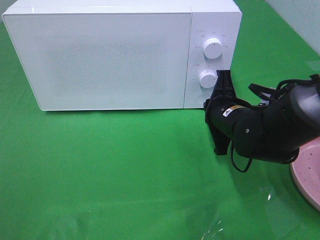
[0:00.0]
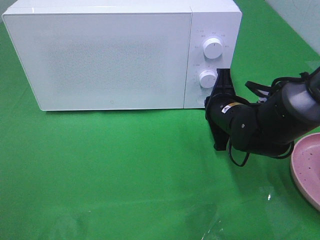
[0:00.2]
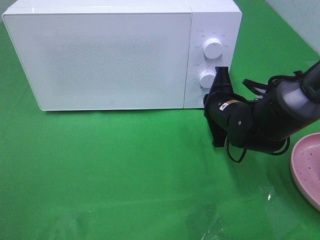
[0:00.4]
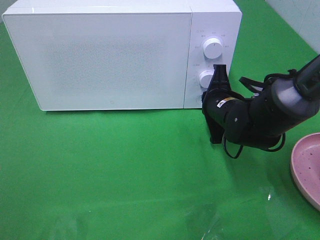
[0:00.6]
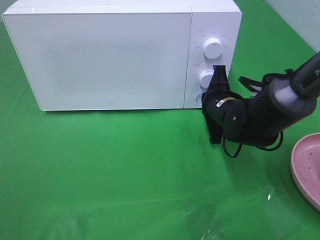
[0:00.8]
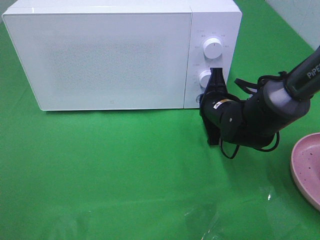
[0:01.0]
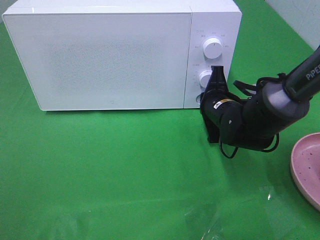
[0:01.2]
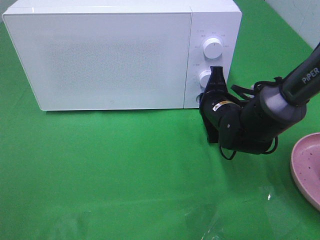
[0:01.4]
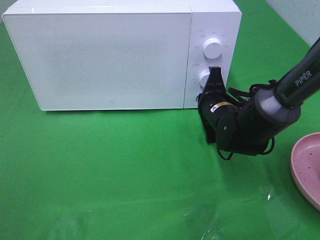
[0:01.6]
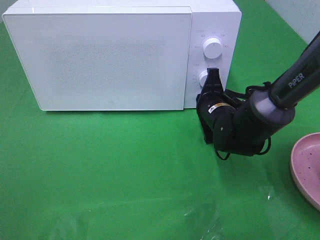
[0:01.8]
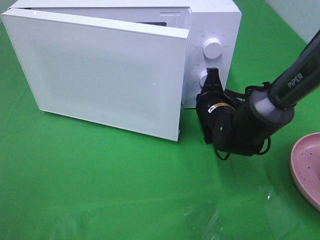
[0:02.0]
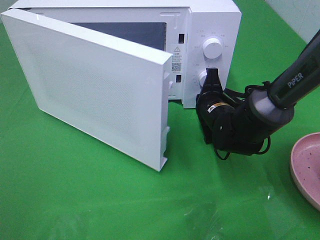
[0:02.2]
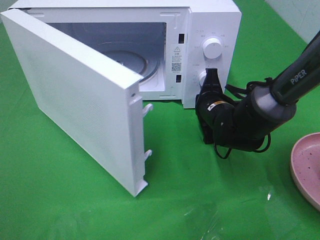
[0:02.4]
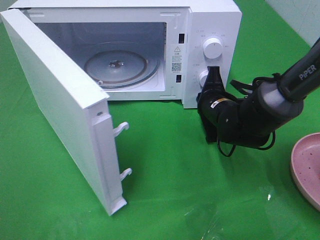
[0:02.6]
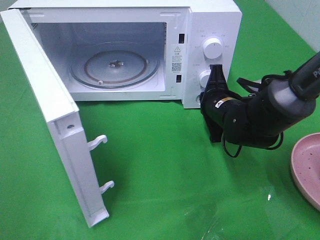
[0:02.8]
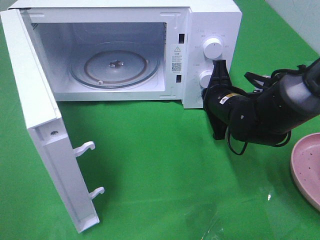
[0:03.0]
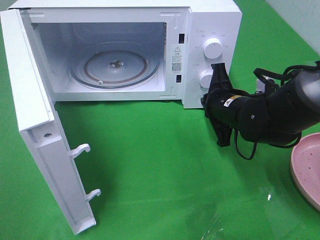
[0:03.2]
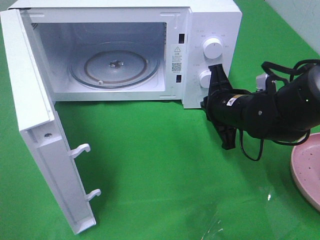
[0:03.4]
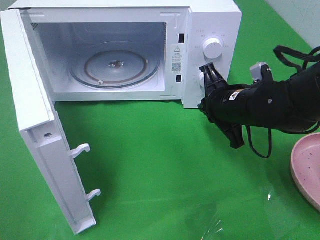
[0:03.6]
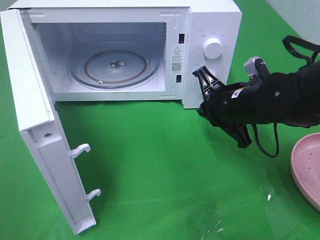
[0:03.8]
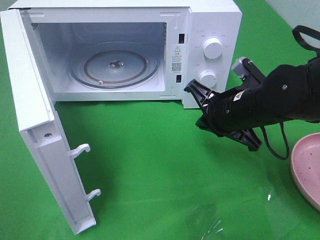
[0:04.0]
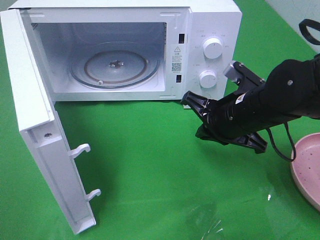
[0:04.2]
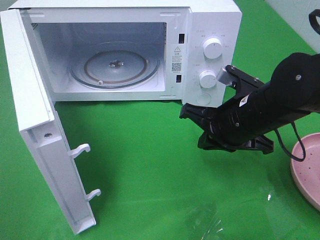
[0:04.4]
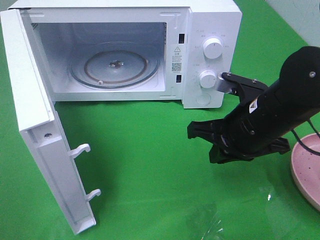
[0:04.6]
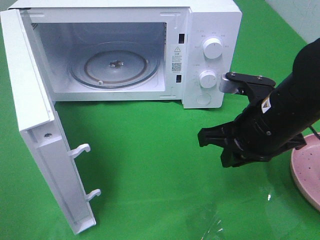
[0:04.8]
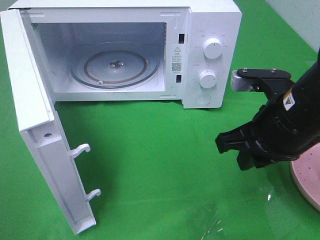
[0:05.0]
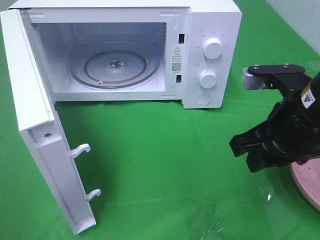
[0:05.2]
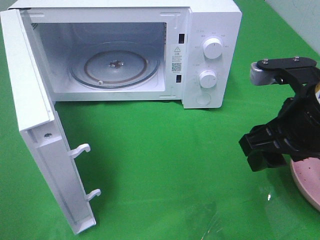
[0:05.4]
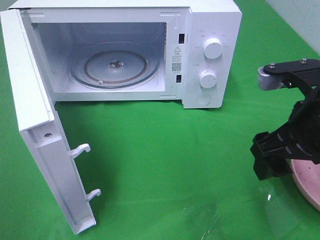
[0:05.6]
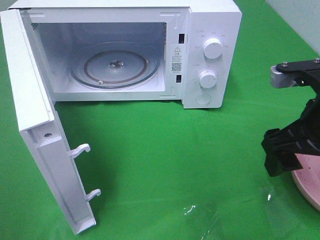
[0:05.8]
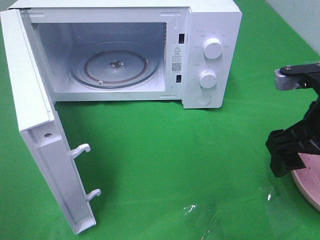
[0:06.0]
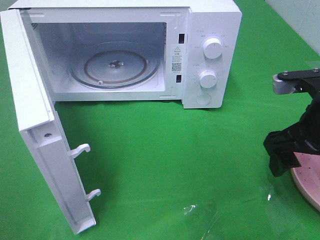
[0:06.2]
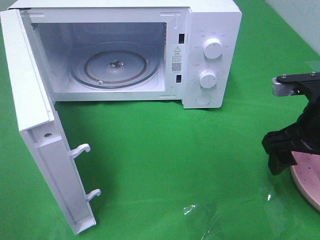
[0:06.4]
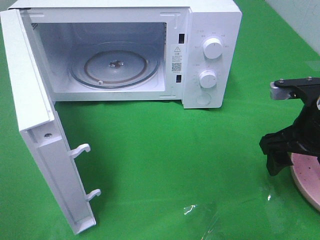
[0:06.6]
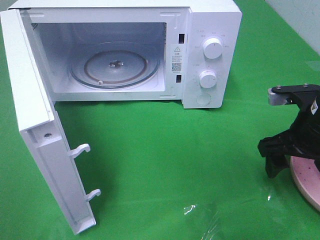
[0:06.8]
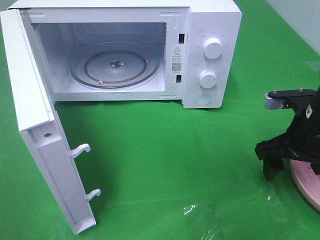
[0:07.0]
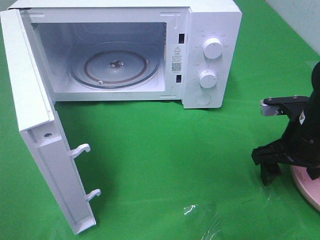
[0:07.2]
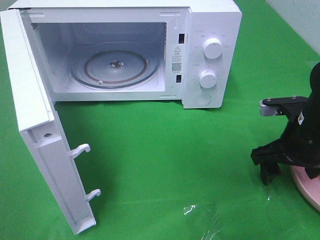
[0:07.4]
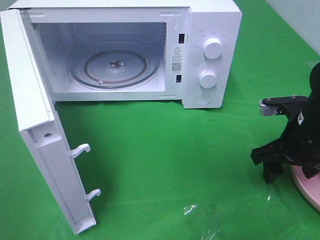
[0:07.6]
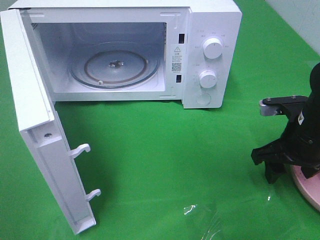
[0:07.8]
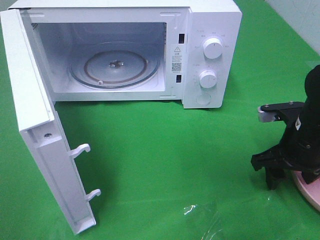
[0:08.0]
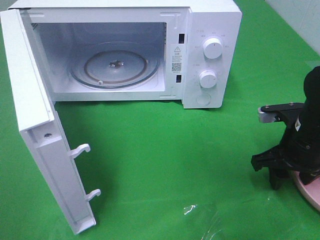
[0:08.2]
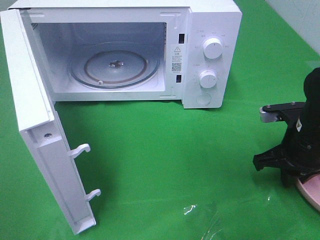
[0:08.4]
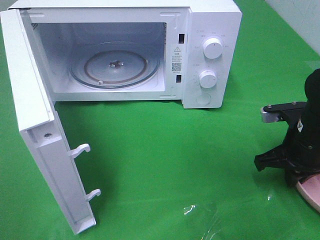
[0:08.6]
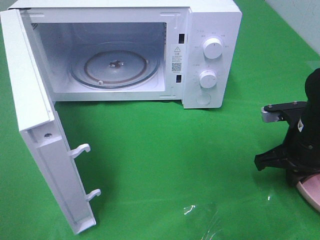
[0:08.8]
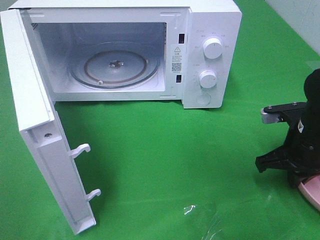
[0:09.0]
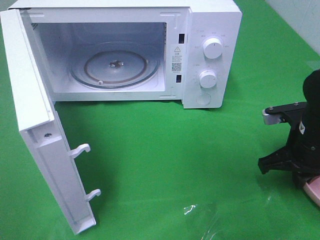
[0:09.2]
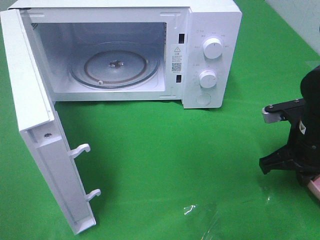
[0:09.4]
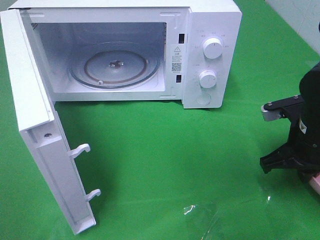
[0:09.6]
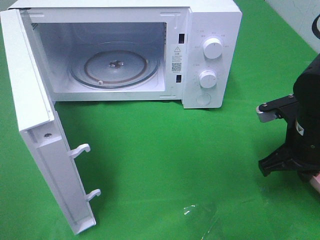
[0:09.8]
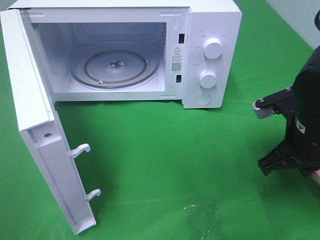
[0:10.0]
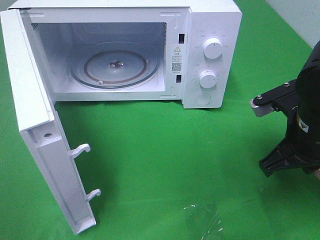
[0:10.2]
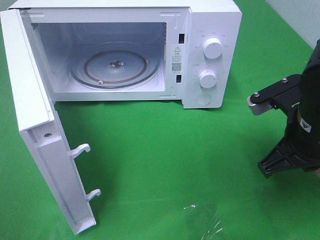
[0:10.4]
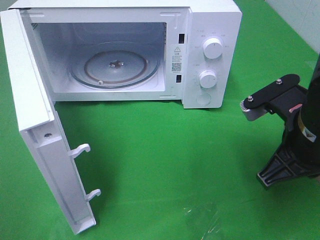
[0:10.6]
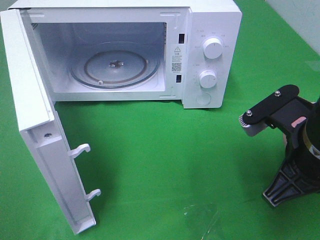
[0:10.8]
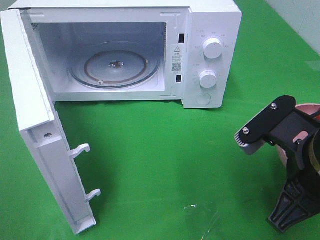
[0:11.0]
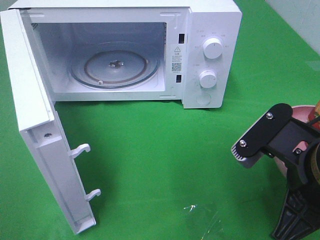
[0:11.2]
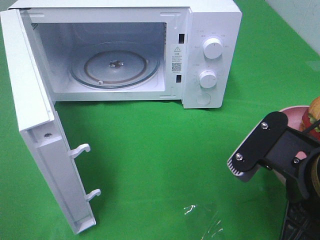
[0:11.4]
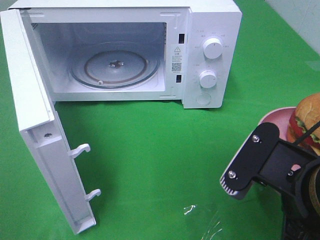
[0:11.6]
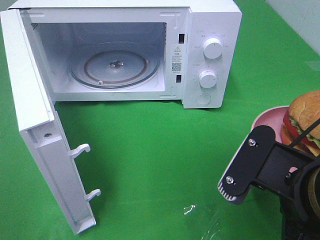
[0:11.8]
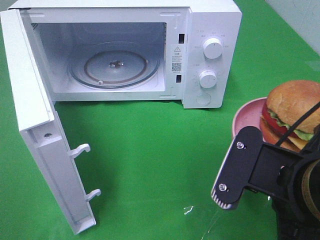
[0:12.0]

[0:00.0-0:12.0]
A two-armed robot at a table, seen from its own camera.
Task of the whole recording: Heat the burger.
Step, 0:00.0 to 0:03.4: Right hand: press the switch.
Step, 0:03.6 to 0:09.0: Right hand: grab the plate with the hamburger.
0:00.0 to 0:01.6: The right gripper changes place by some 5 cm.
0:03.0 to 0:04.4: The right gripper heads backward and upward, covering roughly 10 cm.
0:04.4 to 0:06.0: The right gripper heads to the right, upward and backward, covering about 10 cm, and opens its fingers.
0:06.0 to 0:07.6: The right gripper heads downward and forward, covering about 10 cm.
0:07.6 to 0:09.0: The right gripper closes.
0:09.0 to 0:10.4: The right gripper moves upward and to the left, about 10 cm.
0:10.4 to 0:12.0: The right gripper moves backward and to the left, about 10 cm.

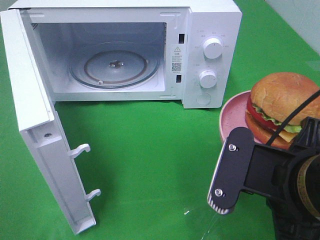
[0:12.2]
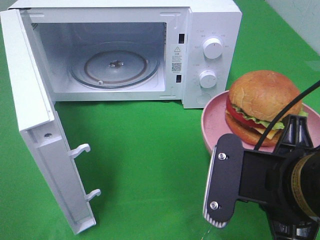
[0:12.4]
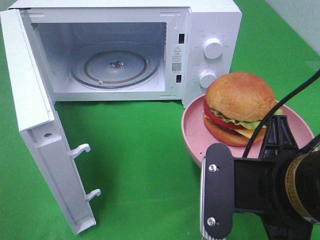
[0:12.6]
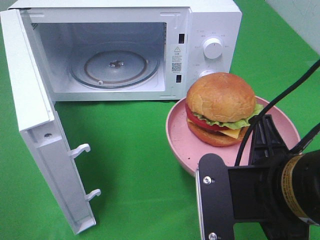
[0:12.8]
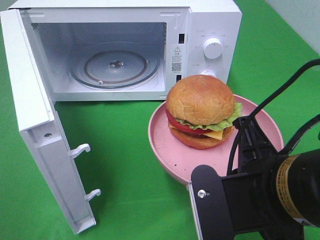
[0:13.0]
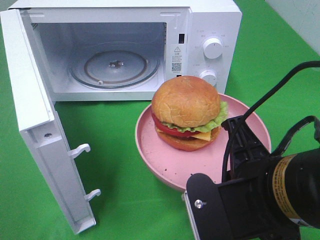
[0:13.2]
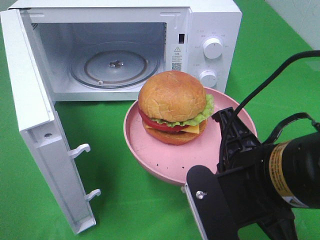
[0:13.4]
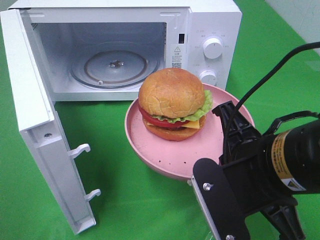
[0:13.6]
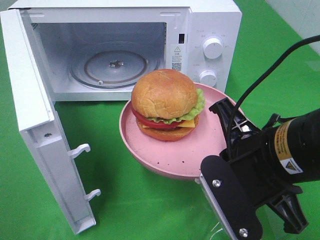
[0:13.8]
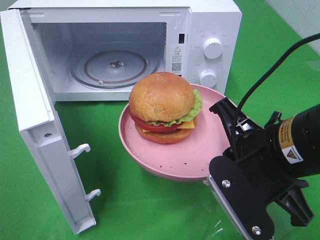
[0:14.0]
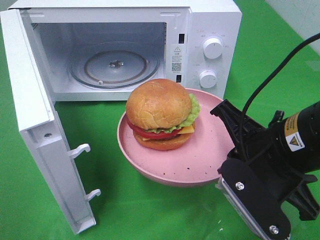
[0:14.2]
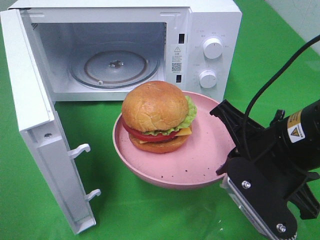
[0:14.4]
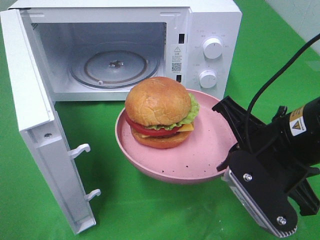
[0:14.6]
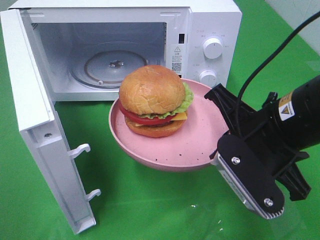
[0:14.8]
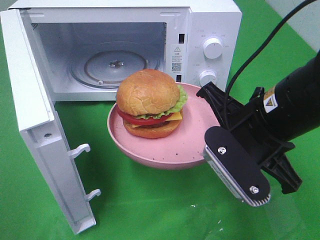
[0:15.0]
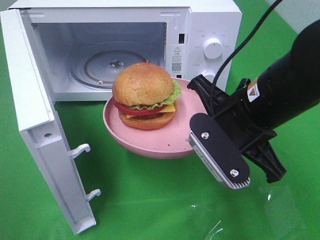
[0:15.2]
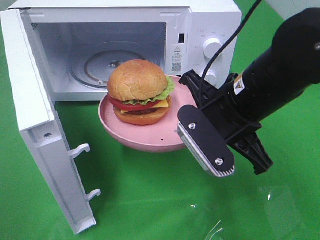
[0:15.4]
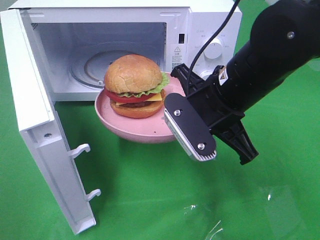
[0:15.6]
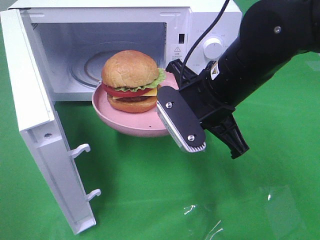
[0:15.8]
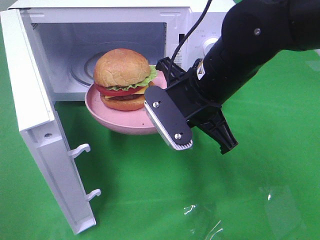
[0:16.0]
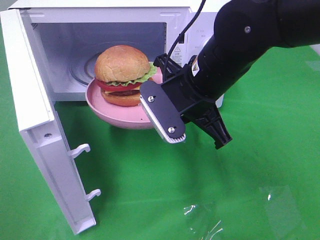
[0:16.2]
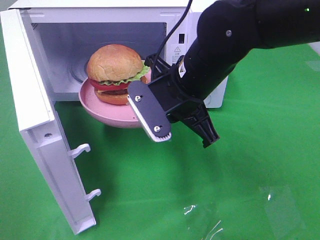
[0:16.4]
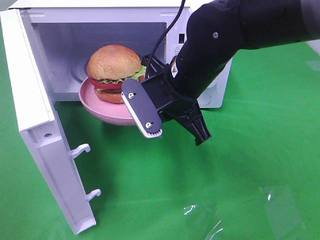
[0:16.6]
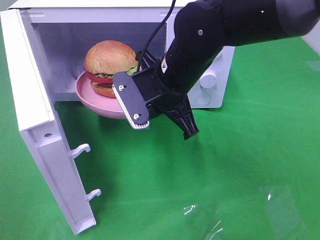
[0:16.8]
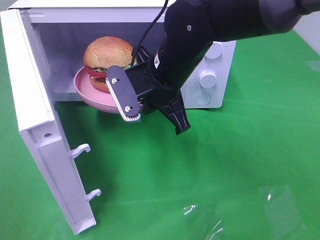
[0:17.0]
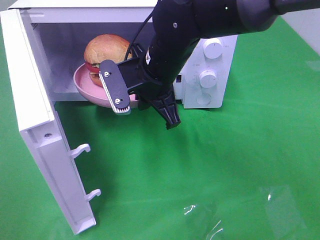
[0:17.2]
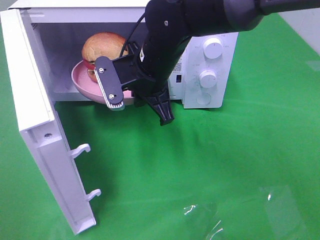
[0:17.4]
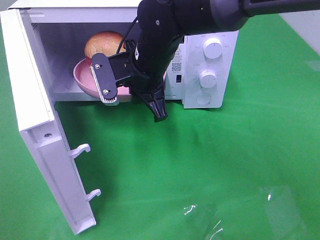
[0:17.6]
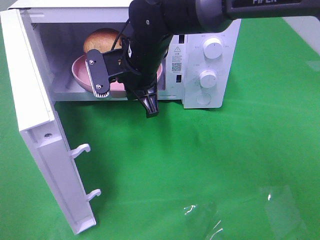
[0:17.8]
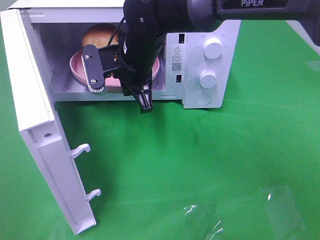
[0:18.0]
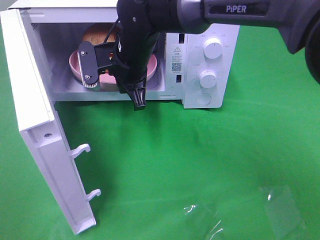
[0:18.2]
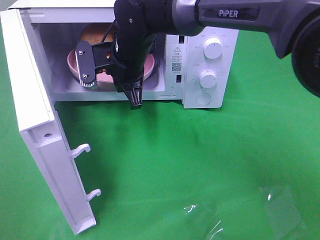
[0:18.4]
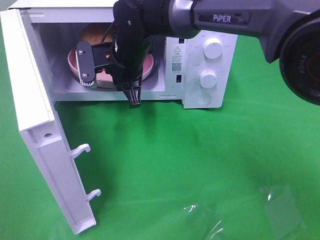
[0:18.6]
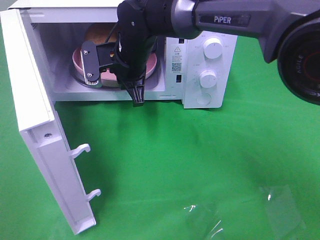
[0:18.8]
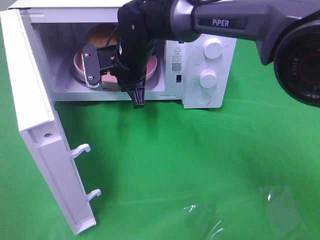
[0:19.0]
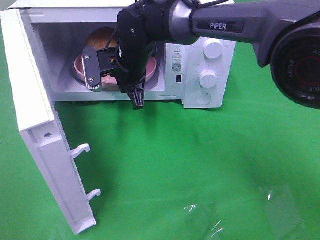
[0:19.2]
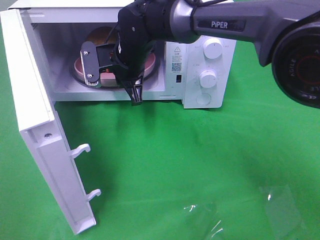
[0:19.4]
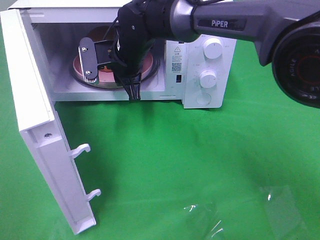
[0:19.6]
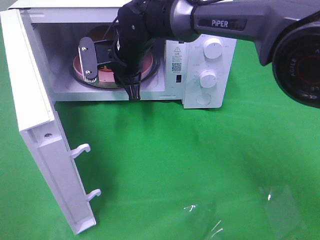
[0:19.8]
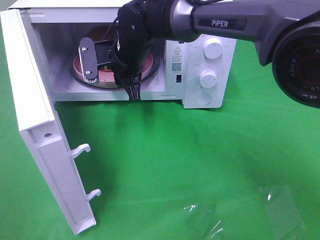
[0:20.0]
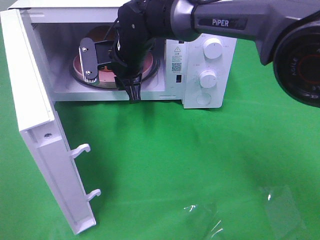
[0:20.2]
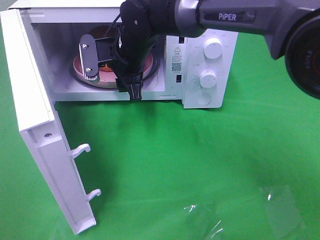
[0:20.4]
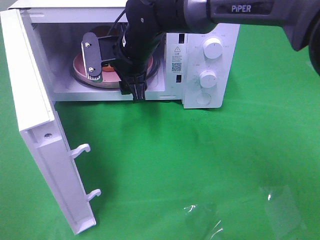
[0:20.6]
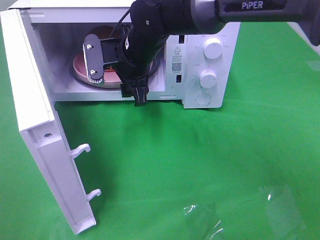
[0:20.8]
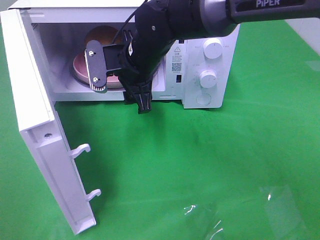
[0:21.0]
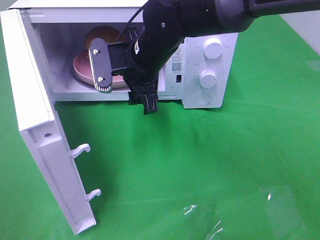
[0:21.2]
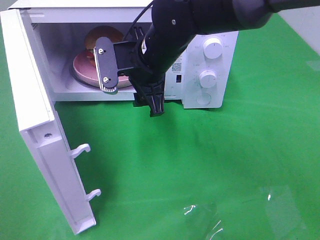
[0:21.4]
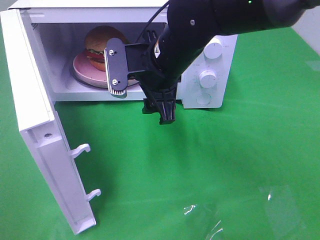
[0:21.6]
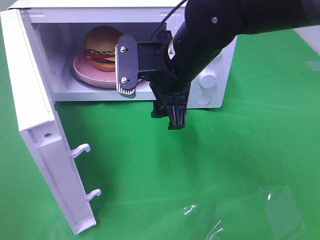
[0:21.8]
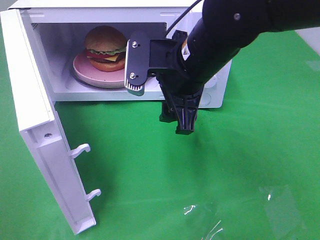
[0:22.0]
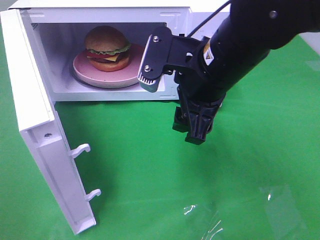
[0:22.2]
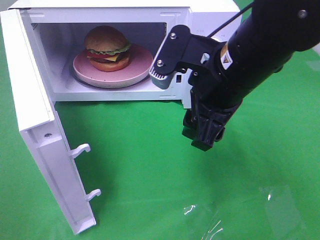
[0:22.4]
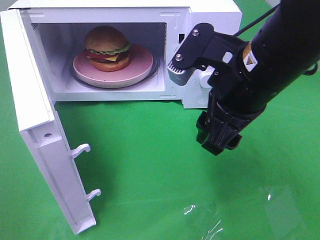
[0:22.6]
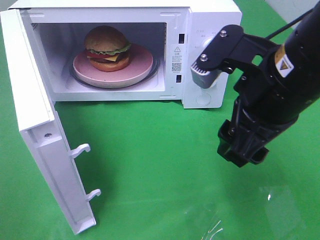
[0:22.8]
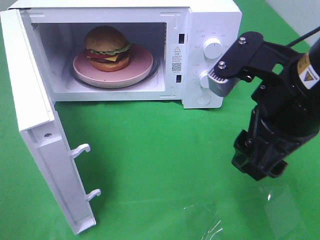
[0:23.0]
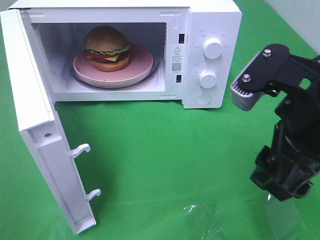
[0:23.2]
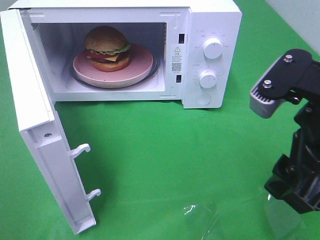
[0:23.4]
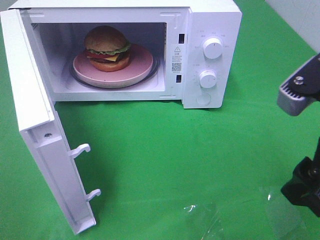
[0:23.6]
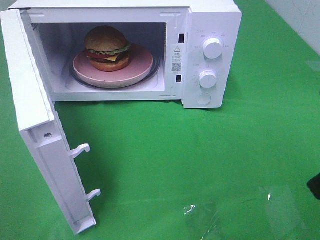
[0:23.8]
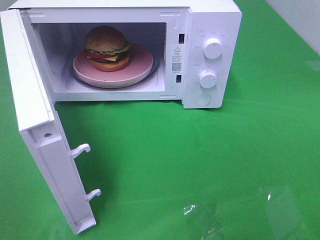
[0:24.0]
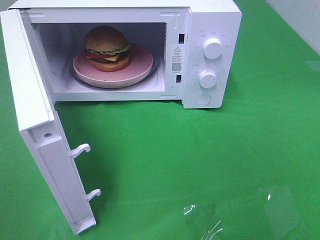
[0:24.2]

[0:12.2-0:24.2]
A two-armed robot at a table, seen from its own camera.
Task of the whole recording: Heat the burger.
Step, 0:12.2 to 0:20.8: Right hand: place the plate in the microwave.
0:13.8 to 0:15.2: The right gripper is displaced forward by some 5 cm.
0:15.2 to 0:16.6: The right gripper moves to the left and forward, roughly 10 cm.
0:16.6 to 0:18.2: The right gripper moves forward and to the left, approximately 15 cm.
0:18.2 to 0:19.8: The right gripper opens up.
0:19.8 to 0:21.2: The right gripper heads backward, covering roughly 5 cm, and opens.
0:21.2 to 0:22.6: The right gripper is displaced backward, to the right and upward by some 20 cm.
0:22.6 to 0:24.2: The right gripper moves to the right and backward, about 25 cm.
